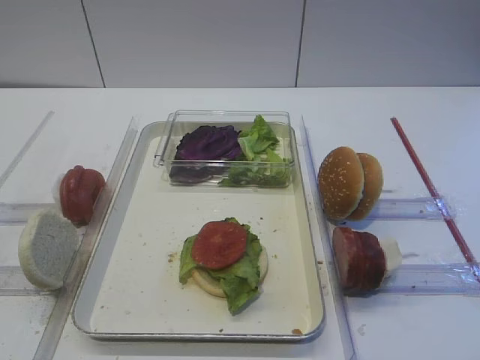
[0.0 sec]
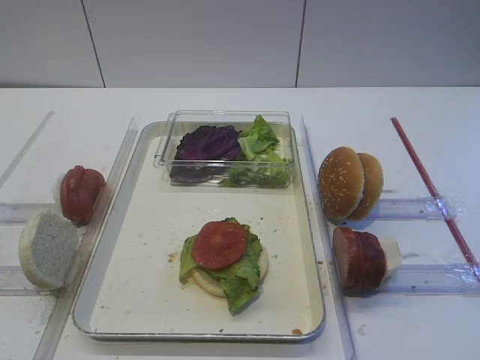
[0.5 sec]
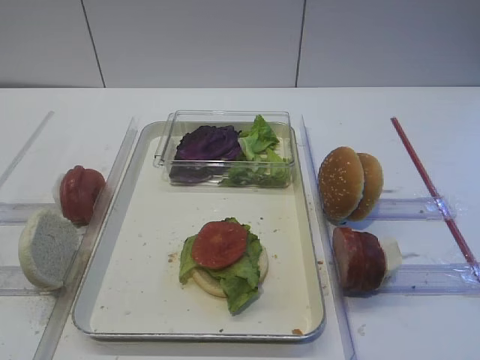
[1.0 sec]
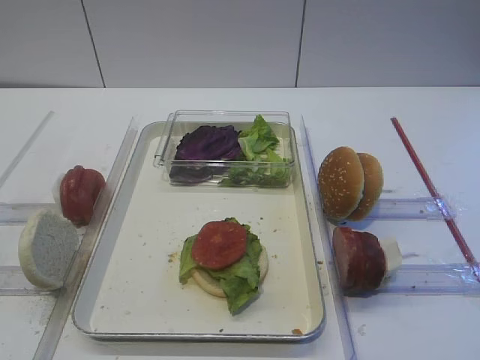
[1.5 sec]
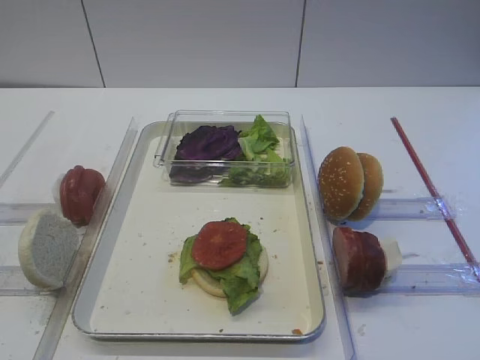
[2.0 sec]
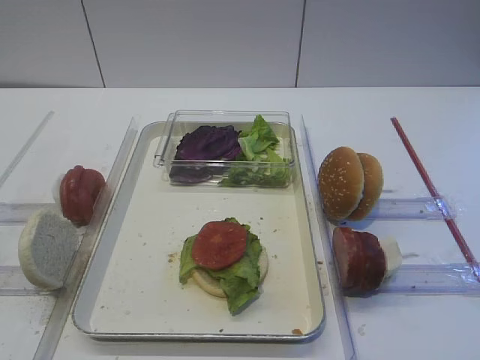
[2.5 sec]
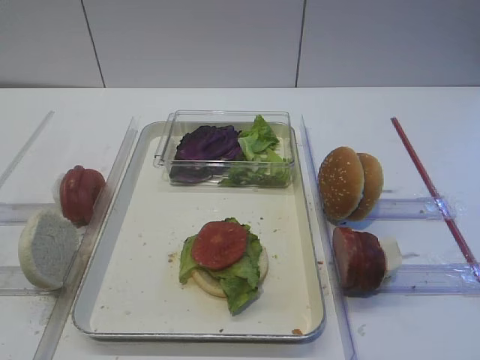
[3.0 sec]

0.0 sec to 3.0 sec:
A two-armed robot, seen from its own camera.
1.5 sec to 3.0 sec: The two grippers keep their place.

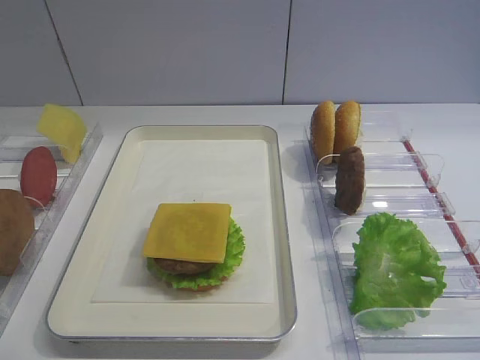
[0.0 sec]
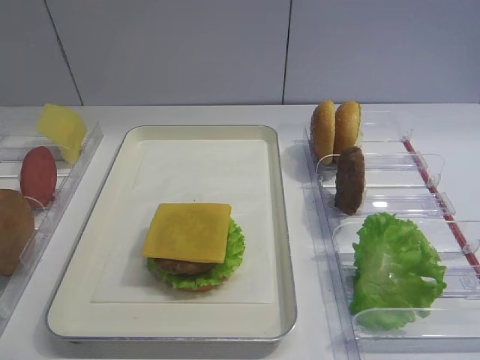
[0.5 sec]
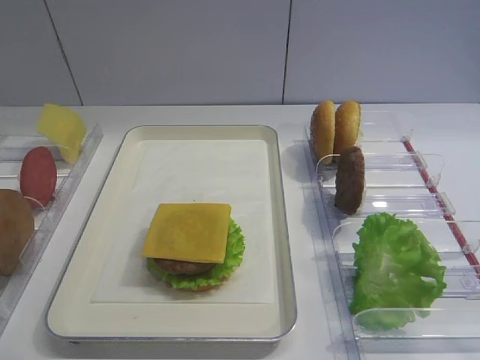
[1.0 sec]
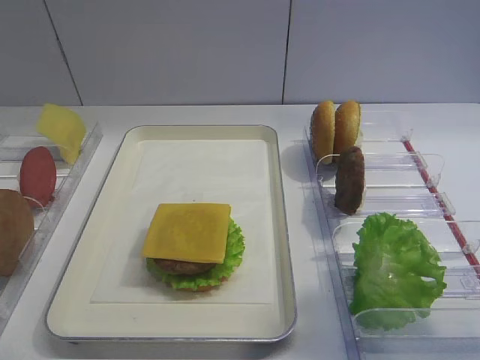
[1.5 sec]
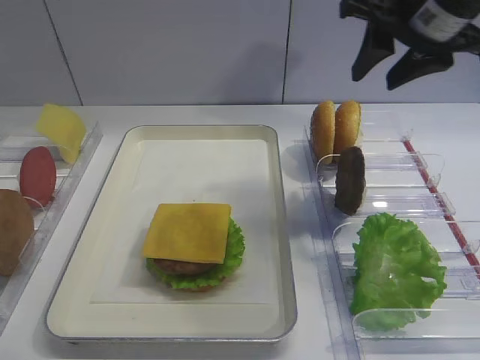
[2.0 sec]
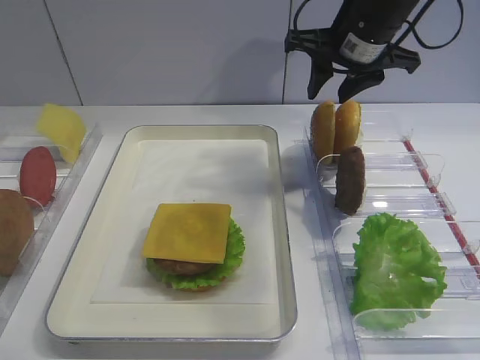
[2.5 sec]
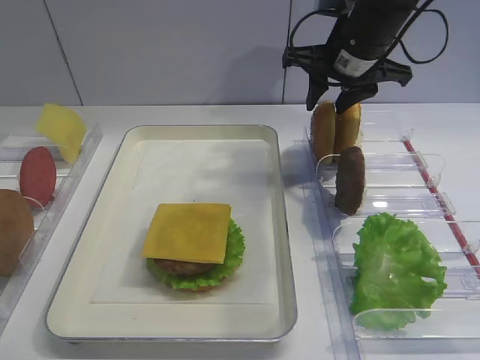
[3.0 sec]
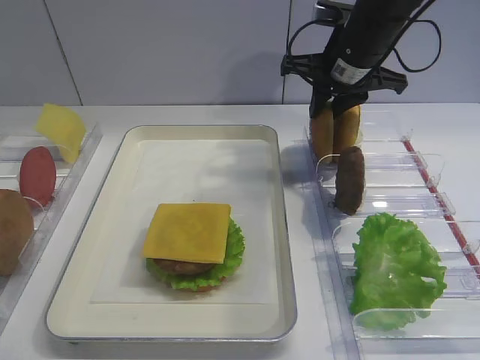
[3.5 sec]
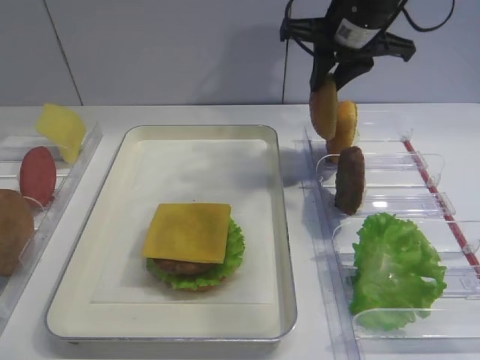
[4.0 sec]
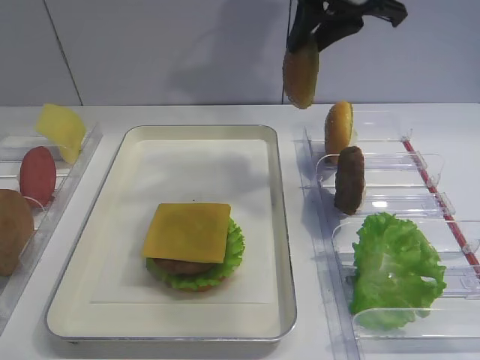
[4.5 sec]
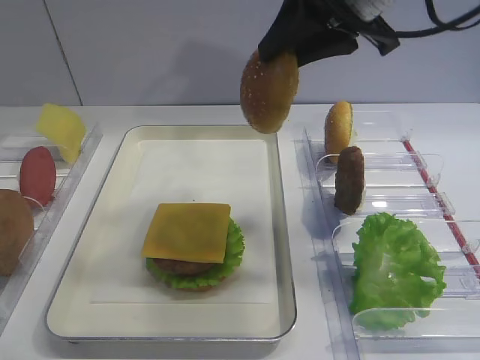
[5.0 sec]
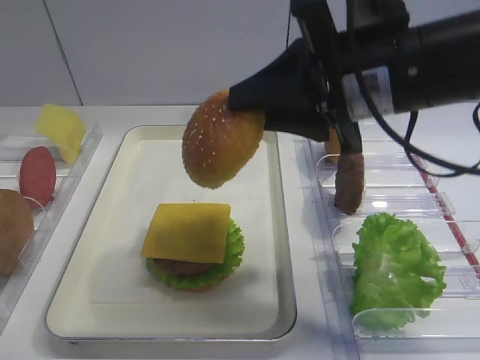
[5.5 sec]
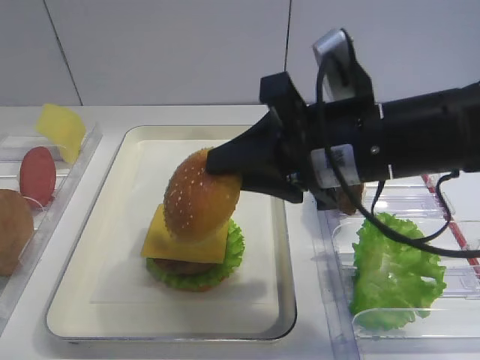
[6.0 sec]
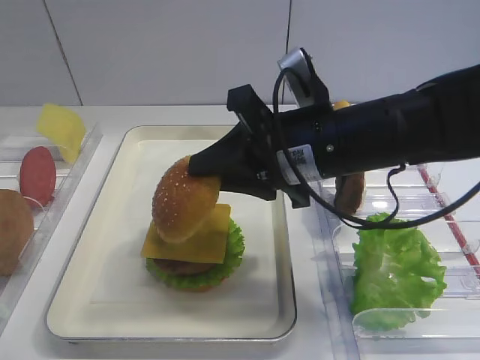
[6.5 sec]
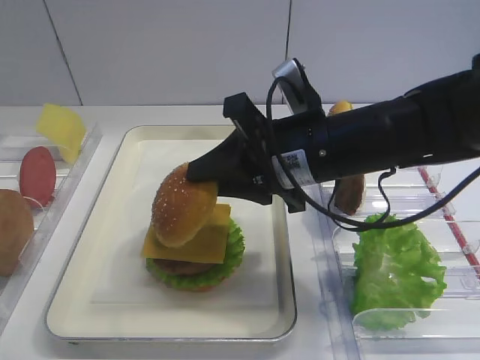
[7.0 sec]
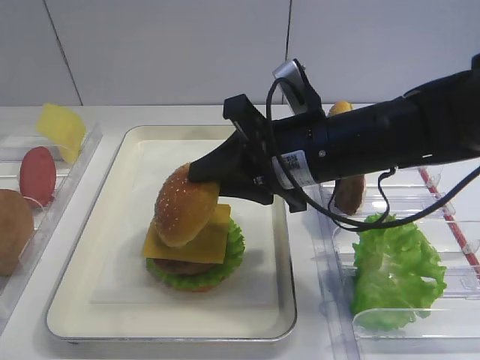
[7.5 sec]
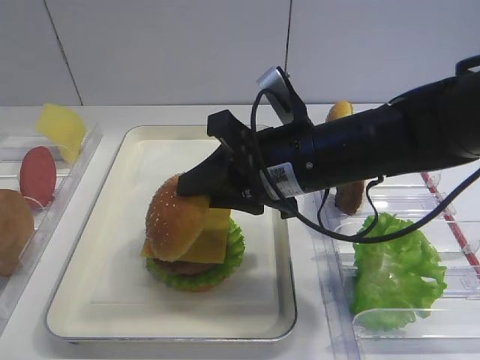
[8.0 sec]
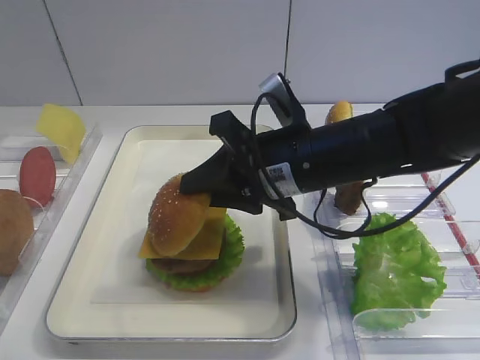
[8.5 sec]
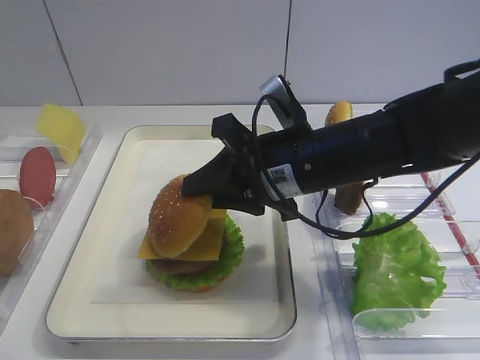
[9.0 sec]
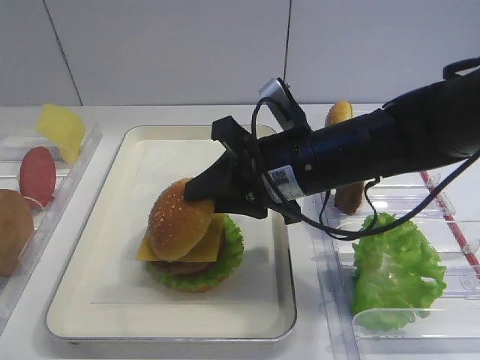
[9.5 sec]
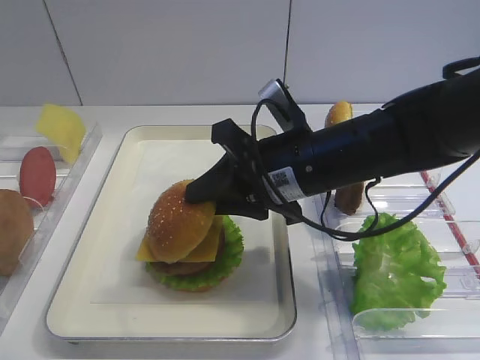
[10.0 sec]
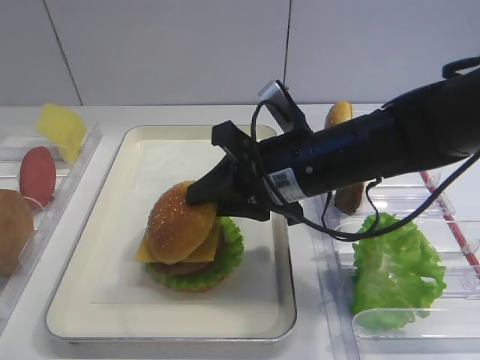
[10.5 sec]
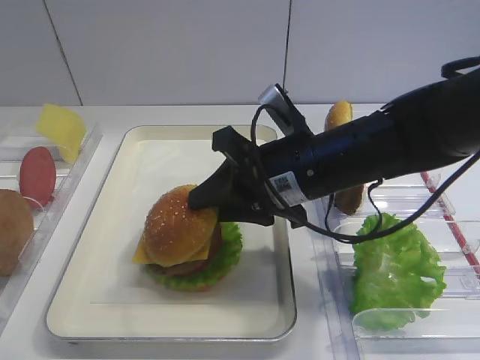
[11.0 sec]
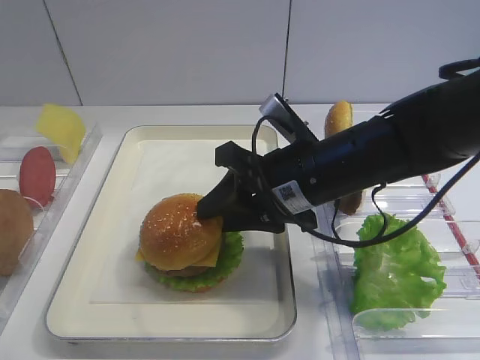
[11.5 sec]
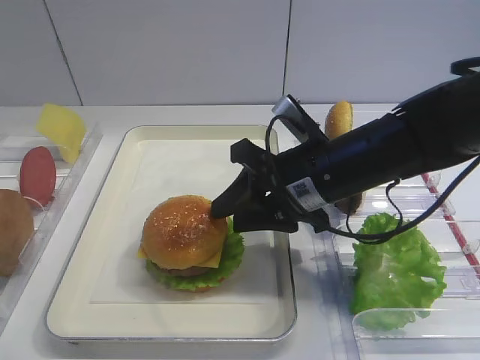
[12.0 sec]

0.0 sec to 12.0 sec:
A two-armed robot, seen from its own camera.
Step, 0.0 sec to 4.5 sec: Pick up the hamburger lid with the right gripper.
2.0 sec to 4.0 sec: The right gripper is displaced forward and to the left by roughly 10 cm, and closes its fingers.
4.0 sec to 6.0 sec: The right gripper travels backward by roughly 20 cm.
6.0 sec to 8.0 sec: The right gripper changes place by about 5 cm.
8.0 sec to 10.0 sec: The grippers make only small movements.
10.0 sec to 12.0 sec: The right gripper opens its fingers.

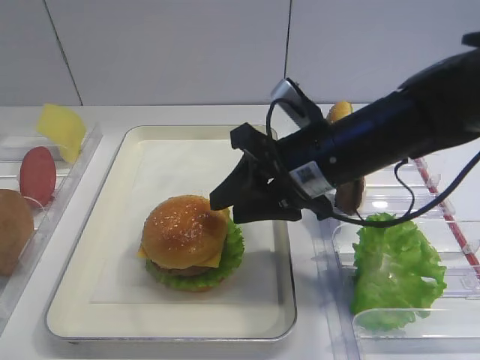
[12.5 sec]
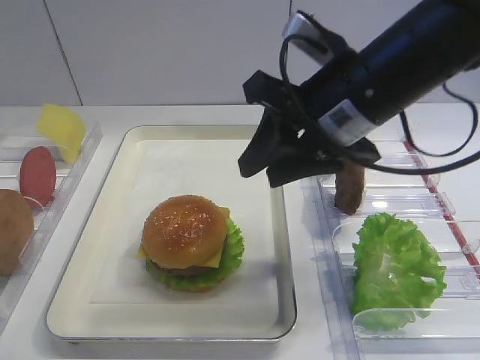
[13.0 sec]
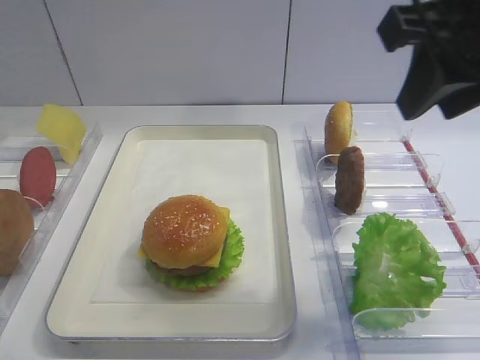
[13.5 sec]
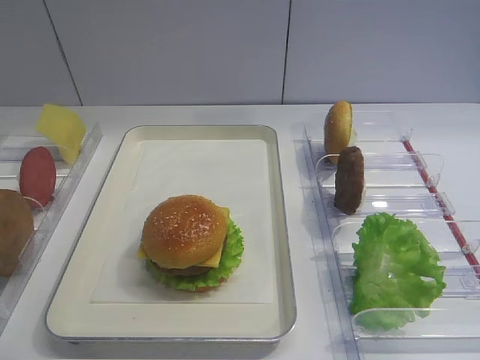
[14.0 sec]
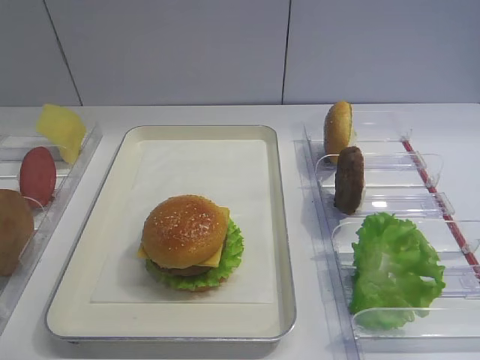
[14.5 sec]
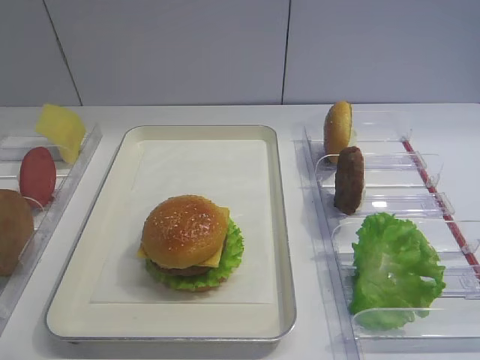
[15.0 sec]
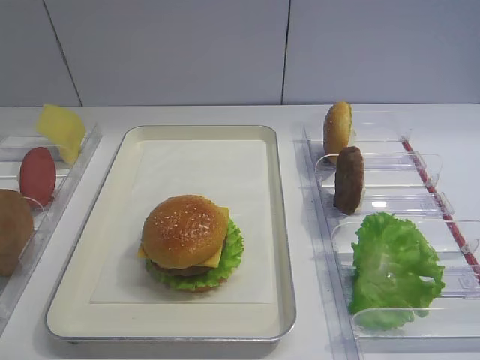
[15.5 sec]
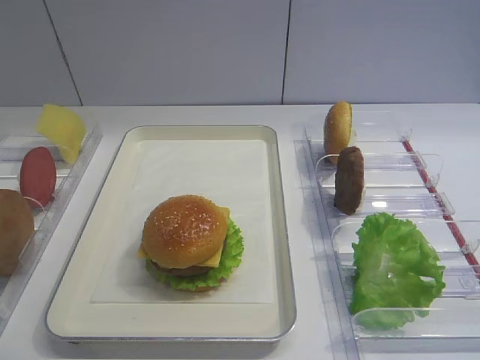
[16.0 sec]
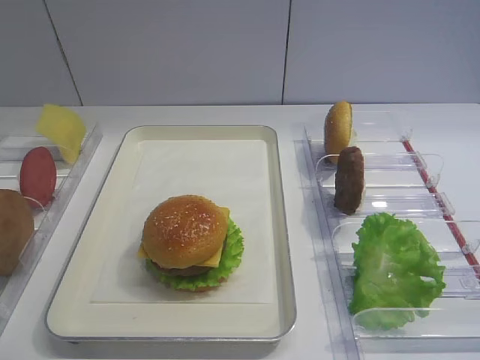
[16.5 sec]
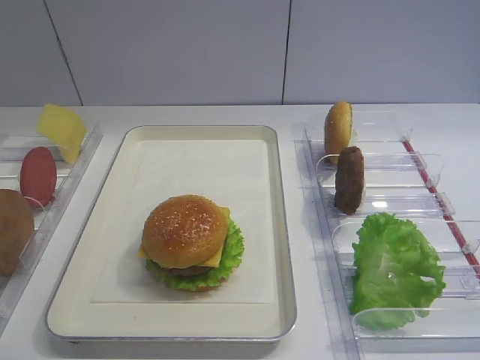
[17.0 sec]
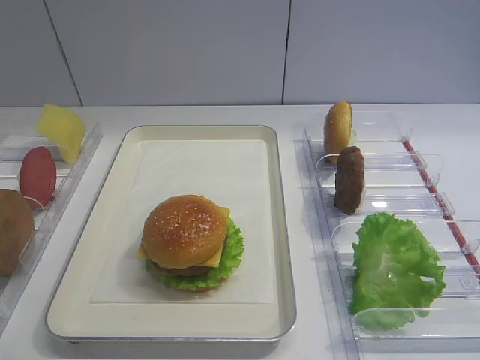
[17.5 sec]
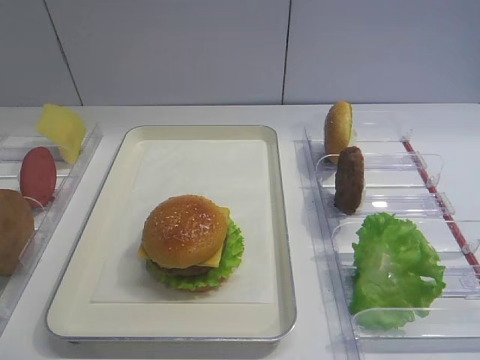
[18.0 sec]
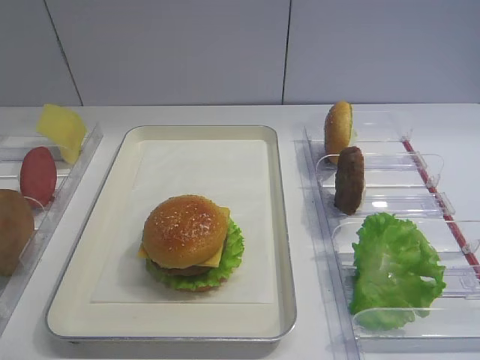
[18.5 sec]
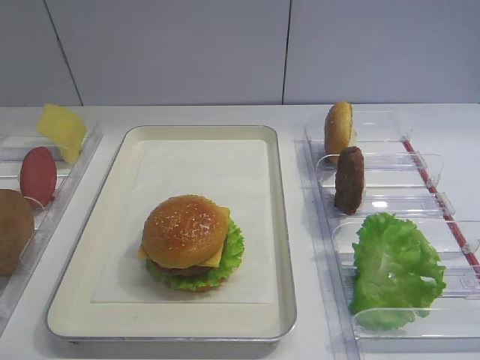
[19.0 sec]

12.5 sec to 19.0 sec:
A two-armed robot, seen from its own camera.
12.5 sec to 14.5 sec: The right gripper is displaced backward, upward and to the right by approximately 35 cm.
17.0 sec to 19.0 sec: The two grippers keep their place.

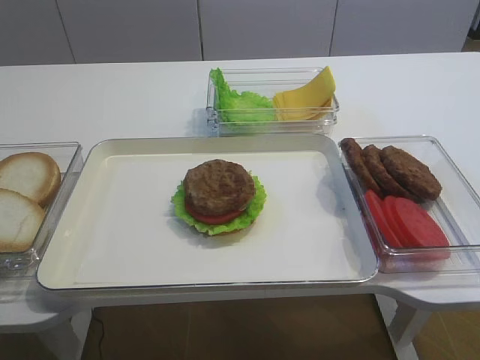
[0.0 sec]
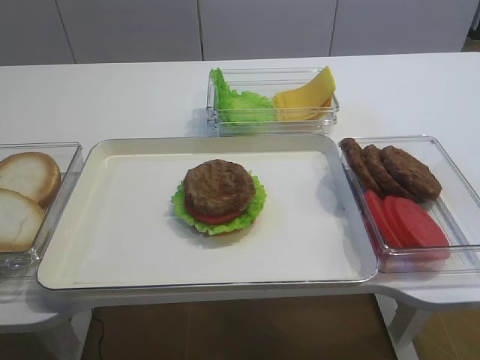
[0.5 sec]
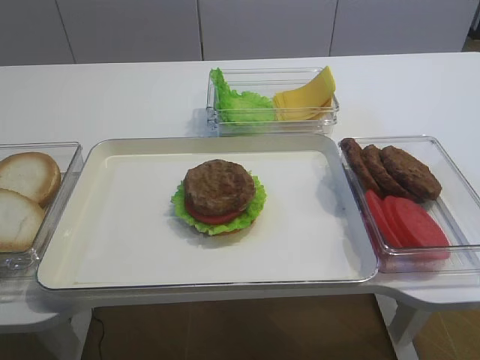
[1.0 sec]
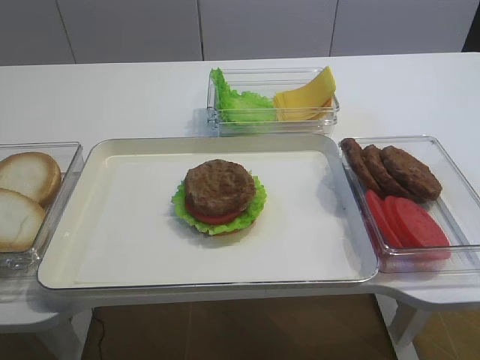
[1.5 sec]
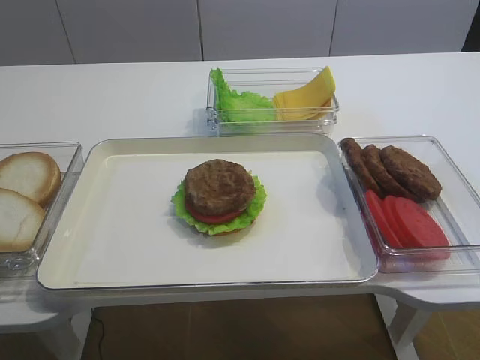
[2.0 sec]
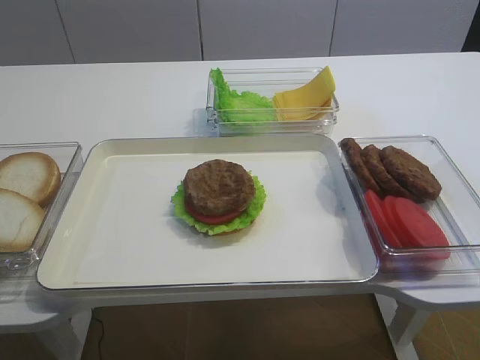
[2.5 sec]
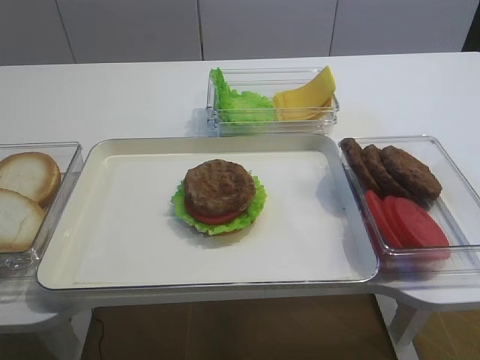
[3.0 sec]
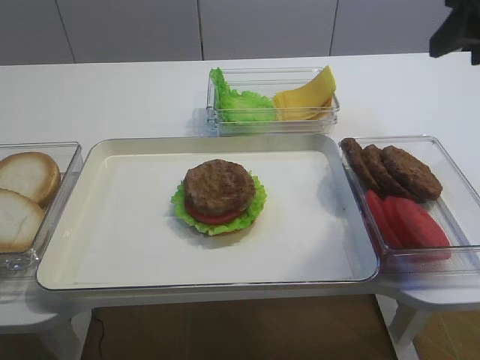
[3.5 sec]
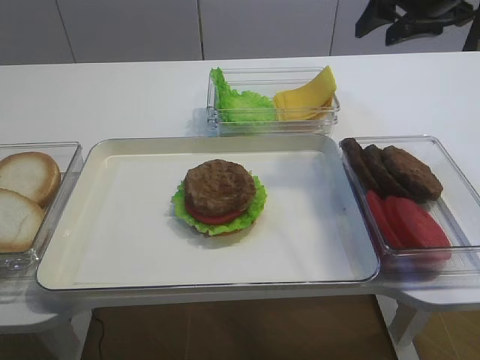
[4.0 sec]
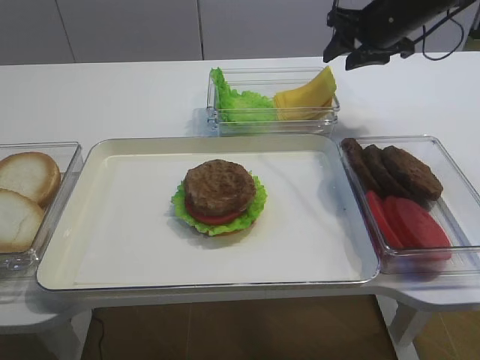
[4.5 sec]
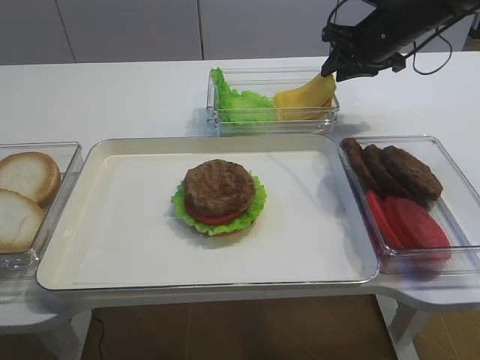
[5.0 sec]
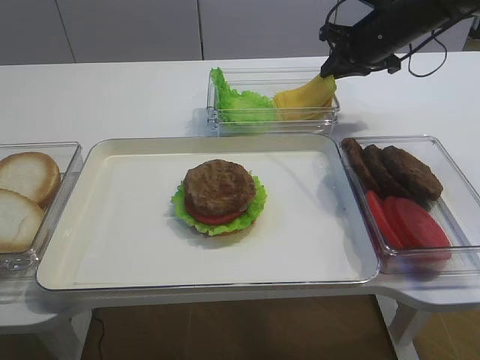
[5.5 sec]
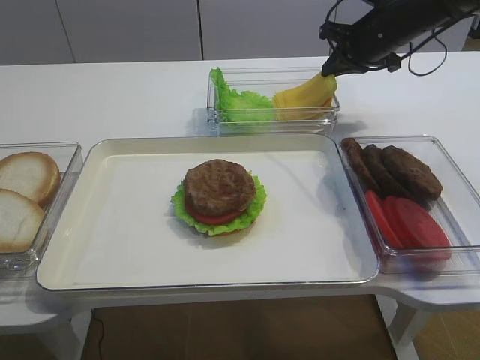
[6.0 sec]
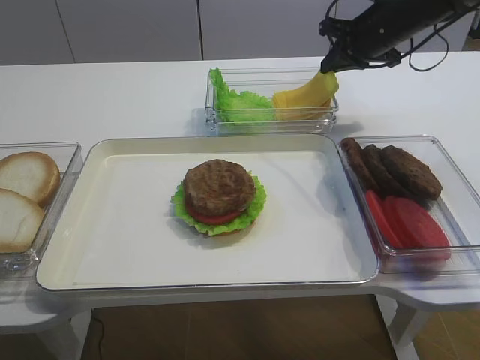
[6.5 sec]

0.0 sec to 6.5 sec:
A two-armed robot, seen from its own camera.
2.0 sec to 4.5 sec: The right gripper goes roughly 50 cm forward.
4.5 sec to 6.5 sec: The right gripper closes its fingers.
